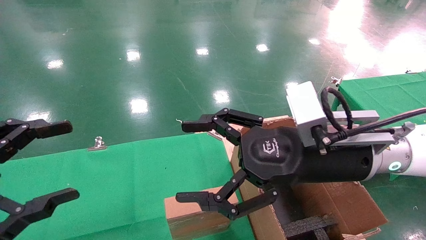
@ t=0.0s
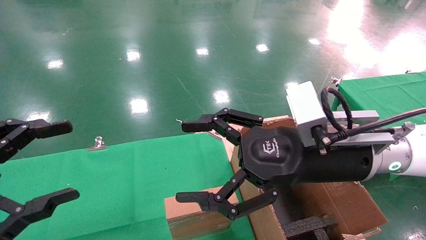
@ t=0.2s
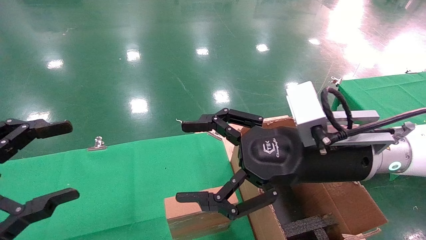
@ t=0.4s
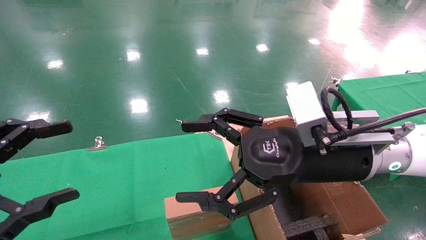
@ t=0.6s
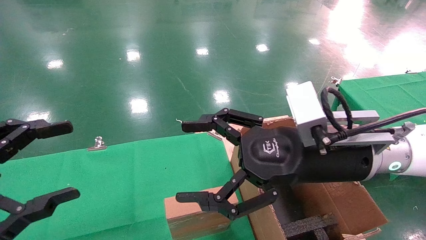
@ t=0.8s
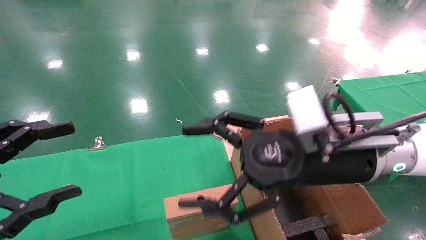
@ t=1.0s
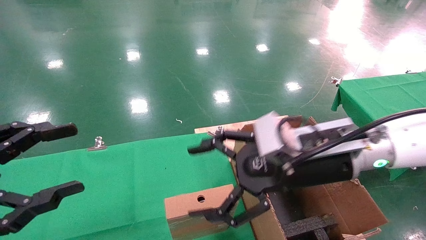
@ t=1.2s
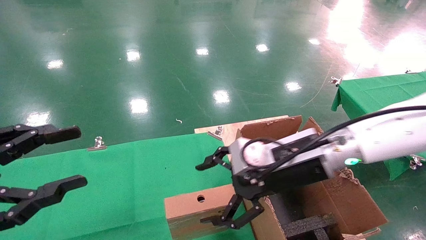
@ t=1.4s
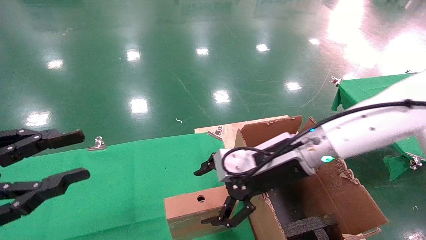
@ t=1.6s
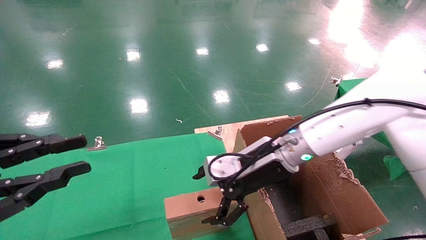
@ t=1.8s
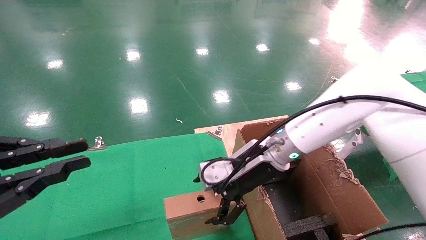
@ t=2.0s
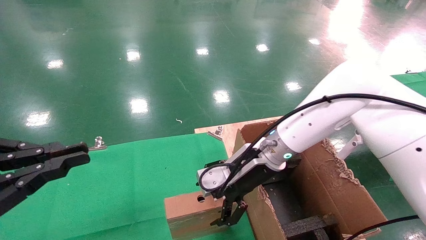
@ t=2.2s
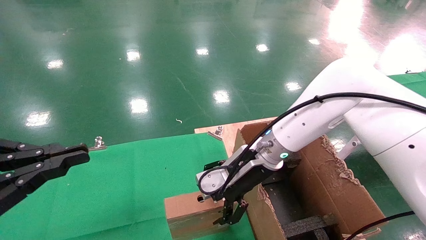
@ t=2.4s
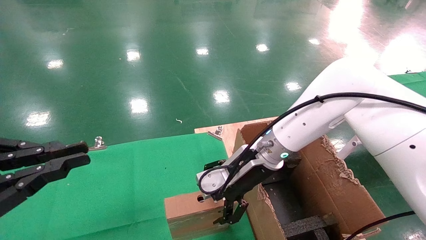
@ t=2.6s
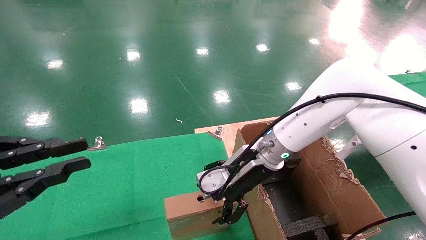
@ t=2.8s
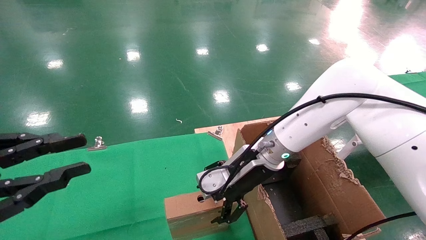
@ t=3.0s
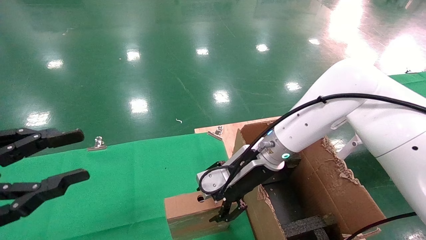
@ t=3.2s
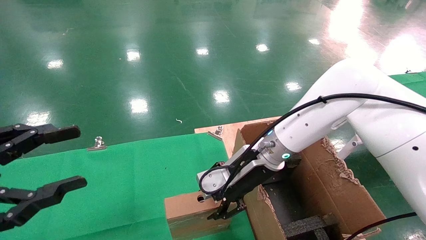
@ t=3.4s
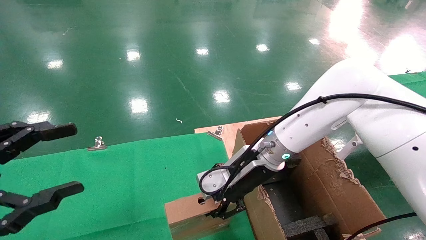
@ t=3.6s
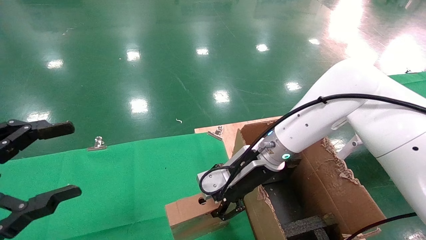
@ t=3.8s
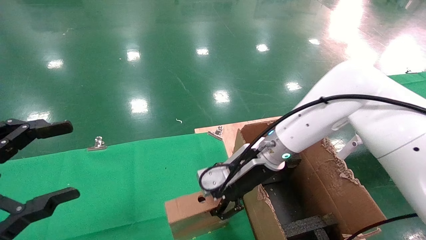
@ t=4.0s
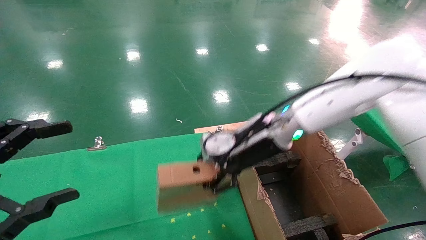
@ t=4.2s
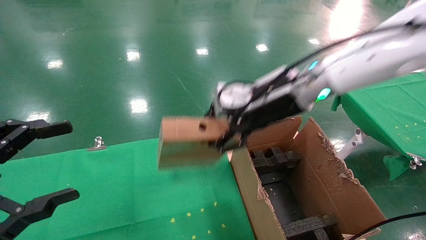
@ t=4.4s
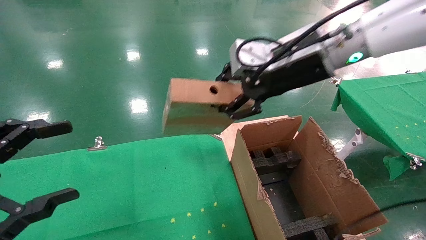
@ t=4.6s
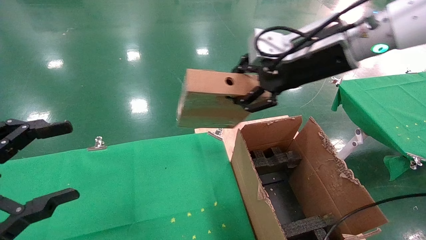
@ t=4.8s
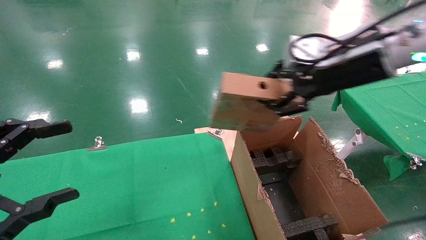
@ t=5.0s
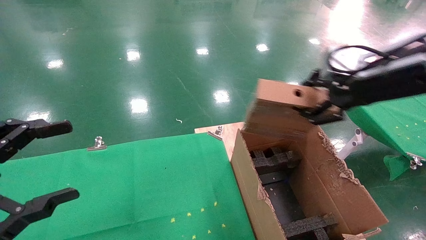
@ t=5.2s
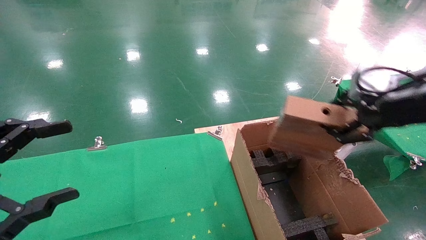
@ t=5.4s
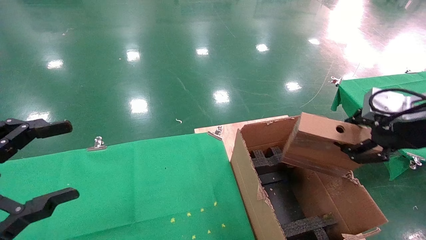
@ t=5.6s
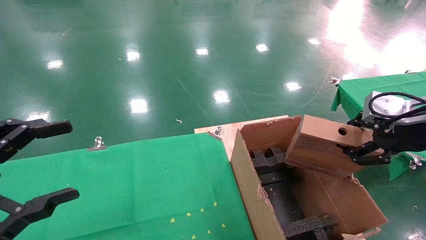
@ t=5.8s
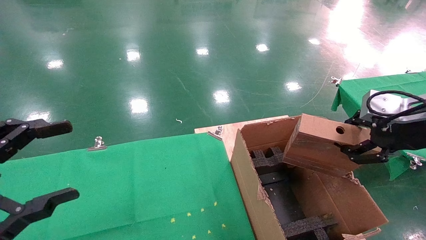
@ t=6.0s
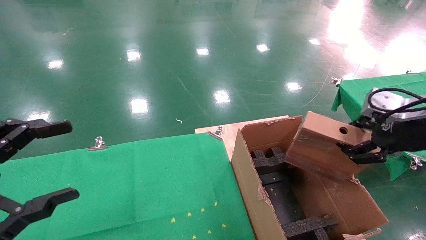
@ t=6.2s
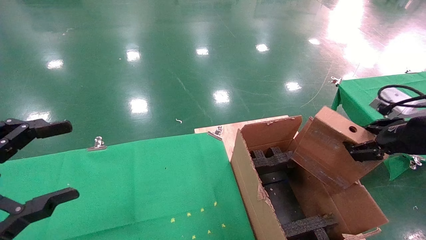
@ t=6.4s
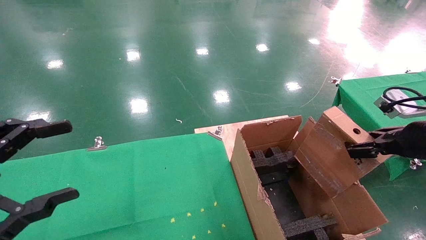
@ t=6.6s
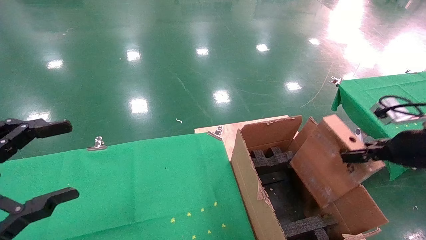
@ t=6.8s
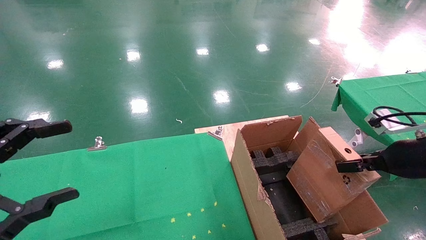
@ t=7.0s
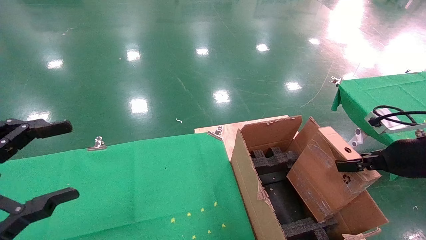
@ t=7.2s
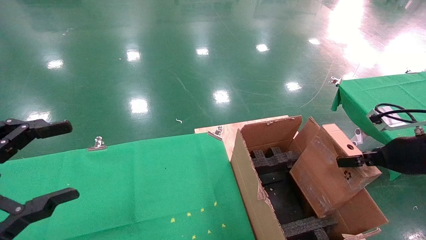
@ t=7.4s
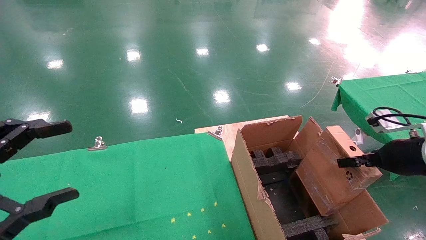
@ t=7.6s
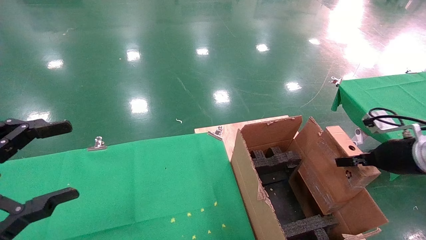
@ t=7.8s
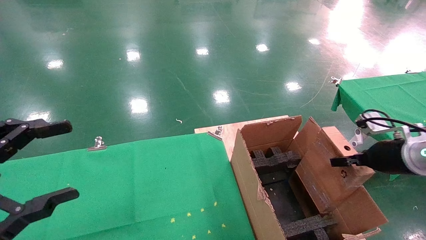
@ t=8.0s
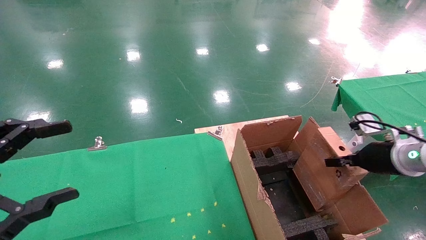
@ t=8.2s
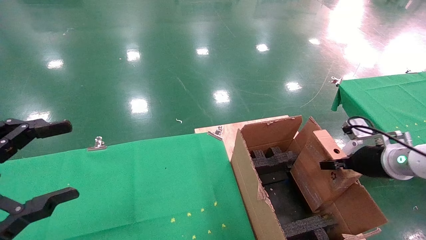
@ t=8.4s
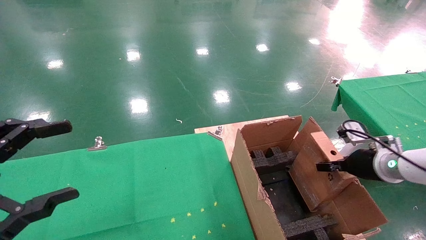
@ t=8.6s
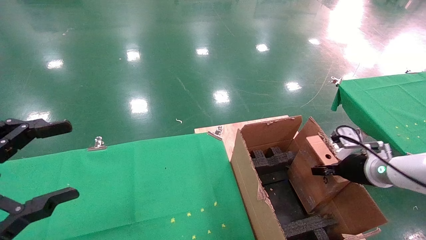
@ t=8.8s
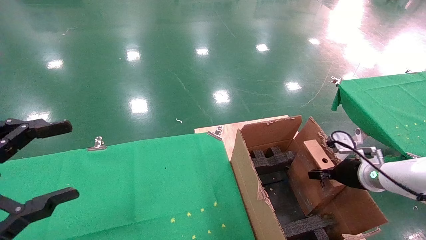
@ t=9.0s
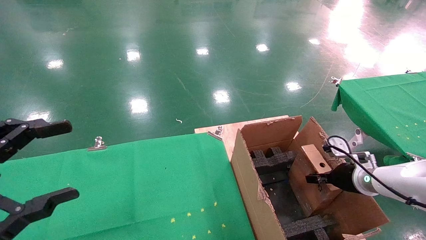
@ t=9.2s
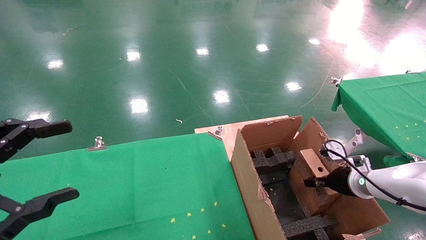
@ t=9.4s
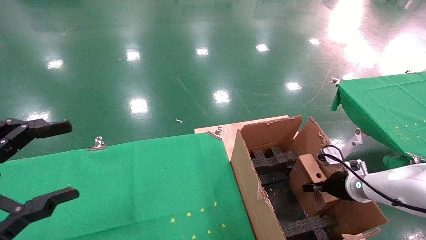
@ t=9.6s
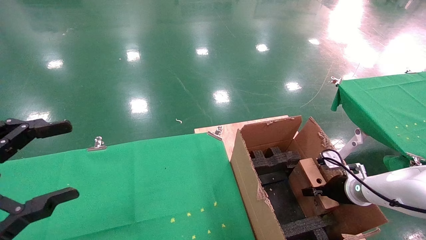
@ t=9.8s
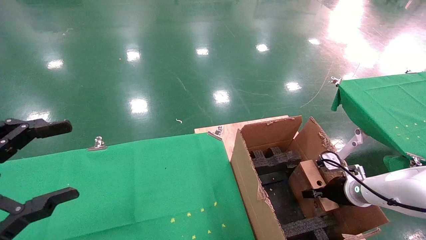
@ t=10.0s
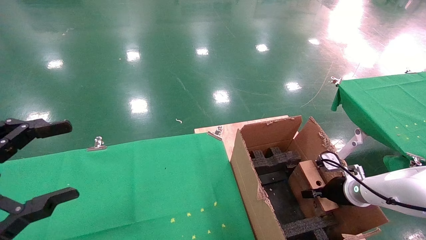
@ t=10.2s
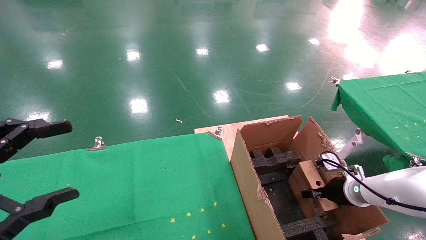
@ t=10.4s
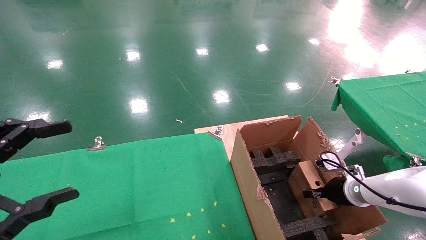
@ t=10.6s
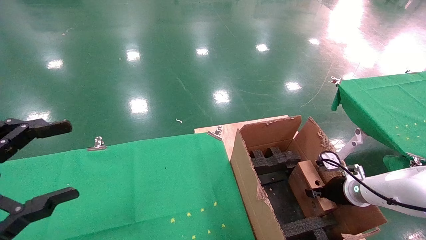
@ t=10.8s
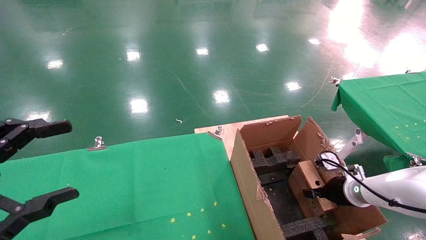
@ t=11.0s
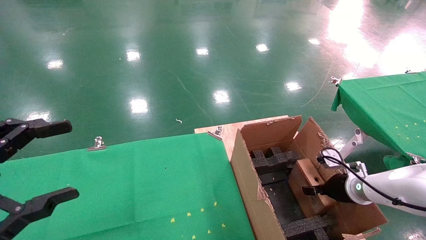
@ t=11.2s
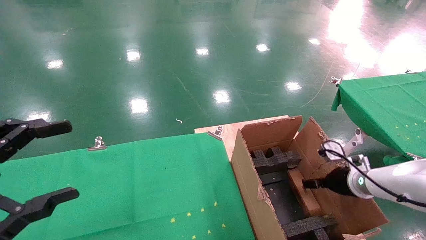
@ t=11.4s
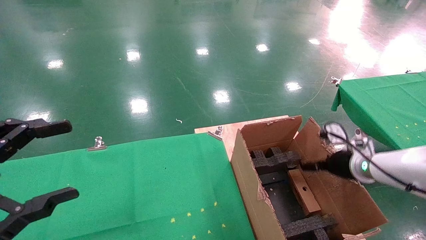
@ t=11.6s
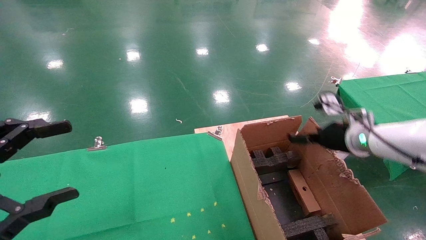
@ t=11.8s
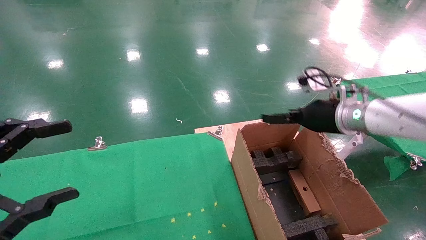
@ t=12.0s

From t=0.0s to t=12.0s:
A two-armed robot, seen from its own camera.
Task of the whole recording: using a robotic arm to pick up a cardboard box and palace it the carton.
Step, from t=1.0s to t=4.0s: Pick up the mouse and the power cord paper box.
Step, from t=4.2s to t=11.8s: Place the mouse and the power cord paper box into the container.
From t=0.0s to t=1.6s: The right gripper travels forward by some 10 cm. The left gripper closes its fingers.
From t=1.6s to t=3.0s: The right gripper is displaced forward by approximately 5 cm. The left gripper closes up.
From t=3.0s to t=4.4s: The right gripper moves upward, some 15 cm, and closes up, while the left gripper opens.
From t=4.4s to t=6.0s: The right gripper is displaced to the right and backward by some 25 cm.
From t=6.0s to t=7.6s: The right gripper moves downward and forward, roughly 10 cm.
From t=7.6s to t=9.0s: The right gripper goes approximately 15 cm downward and forward.
From t=9.0s to t=10.4s: The right gripper goes about 5 cm downward.
From t=10.4s to t=12.0s: The right gripper travels upward and to the left by some 20 cm, and opens up.

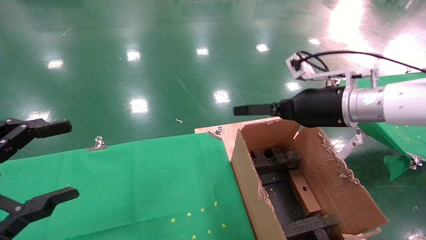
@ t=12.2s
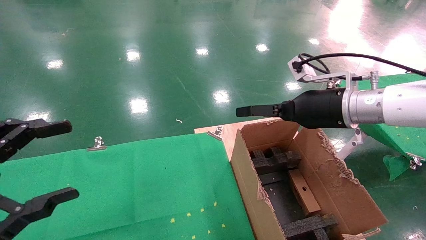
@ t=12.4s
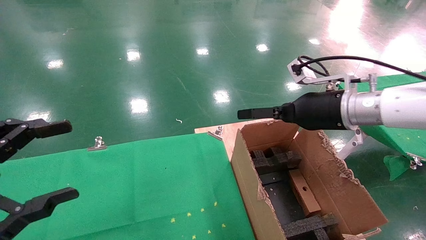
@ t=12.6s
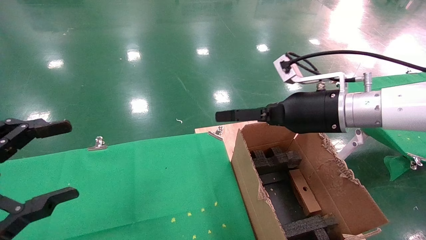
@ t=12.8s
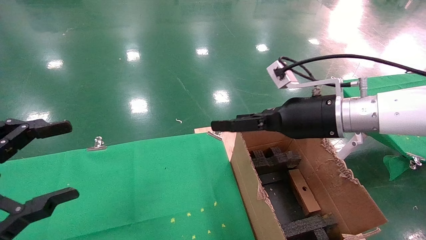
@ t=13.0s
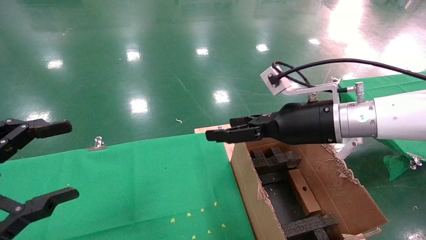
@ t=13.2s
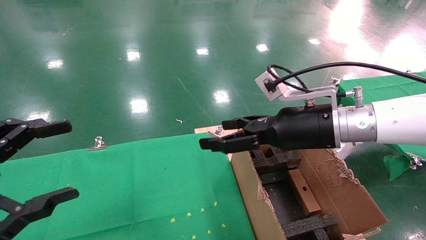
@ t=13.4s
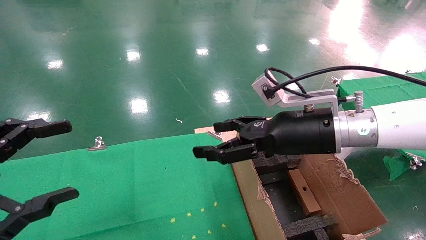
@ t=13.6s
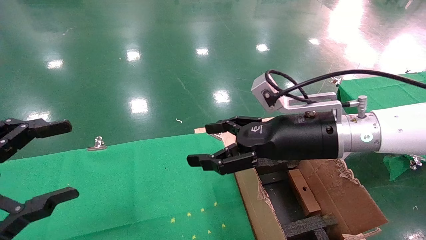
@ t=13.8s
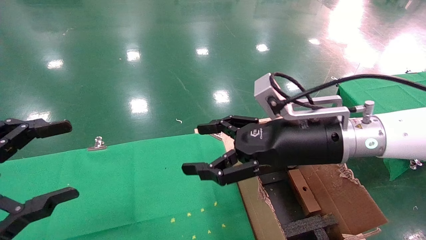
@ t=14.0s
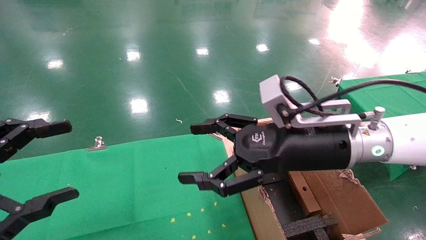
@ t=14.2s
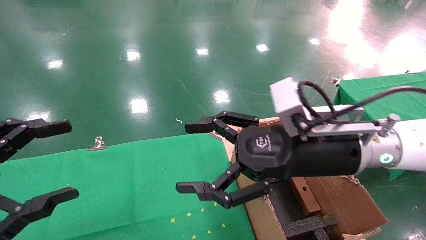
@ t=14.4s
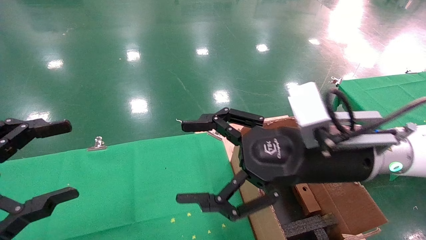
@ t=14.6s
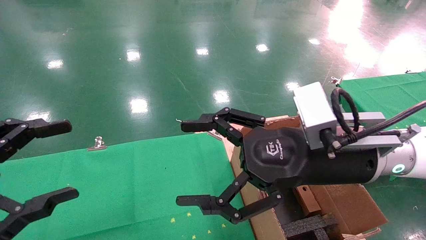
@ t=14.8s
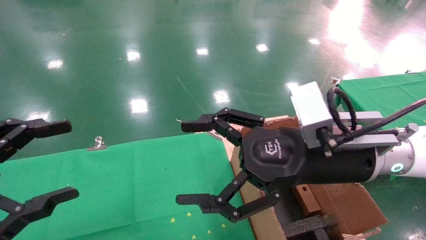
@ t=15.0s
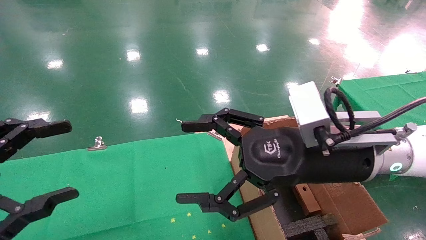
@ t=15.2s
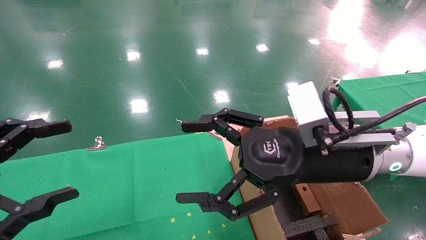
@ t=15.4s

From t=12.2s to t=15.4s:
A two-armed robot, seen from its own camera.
Task of the whole recording: using a robotic arm to pick up a cardboard box and palace it the carton.
From t=12.2s to t=13.8s: The right gripper moves to the left and backward, approximately 10 cm.
